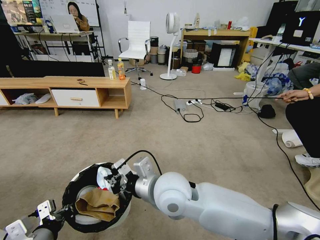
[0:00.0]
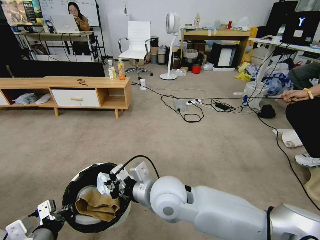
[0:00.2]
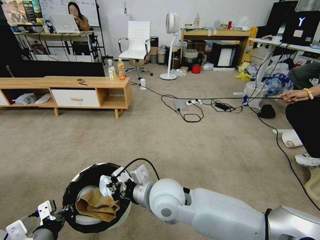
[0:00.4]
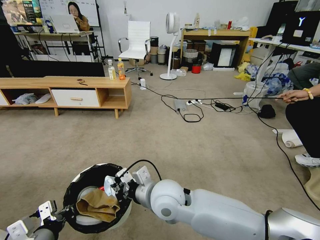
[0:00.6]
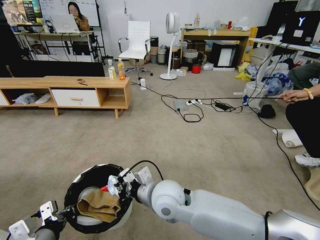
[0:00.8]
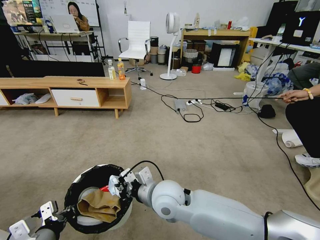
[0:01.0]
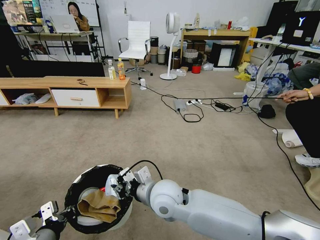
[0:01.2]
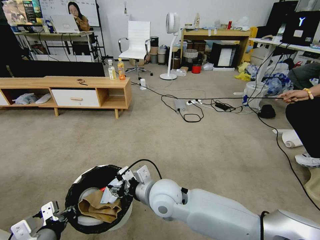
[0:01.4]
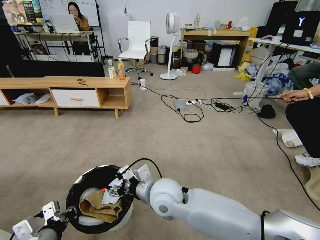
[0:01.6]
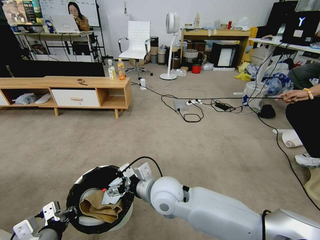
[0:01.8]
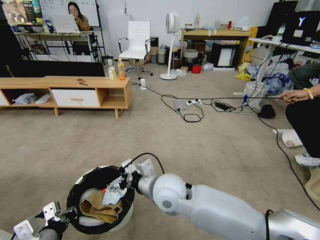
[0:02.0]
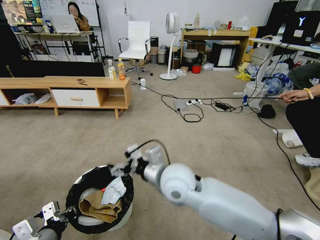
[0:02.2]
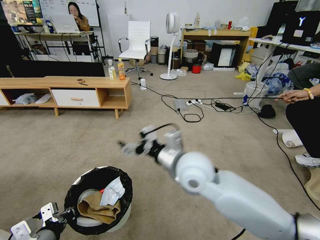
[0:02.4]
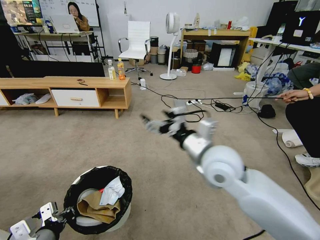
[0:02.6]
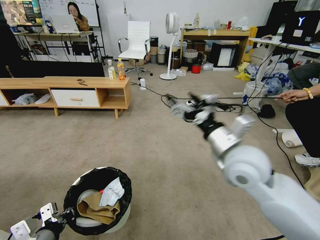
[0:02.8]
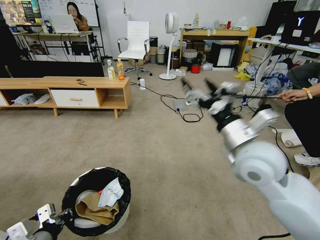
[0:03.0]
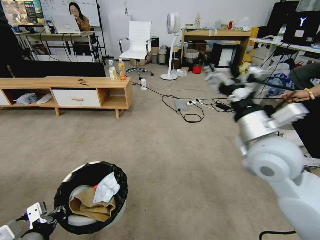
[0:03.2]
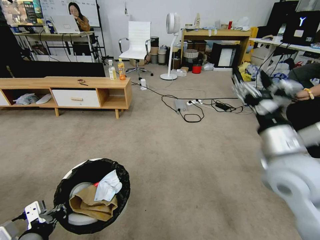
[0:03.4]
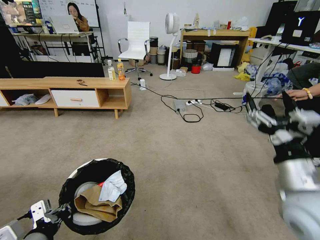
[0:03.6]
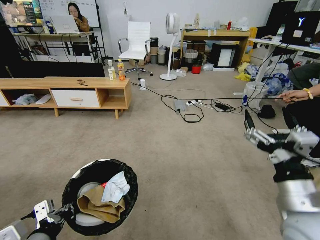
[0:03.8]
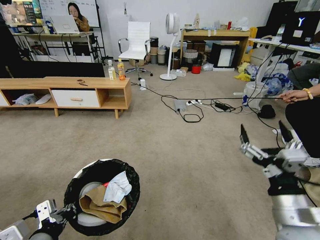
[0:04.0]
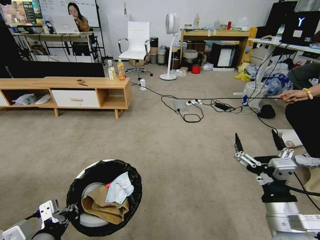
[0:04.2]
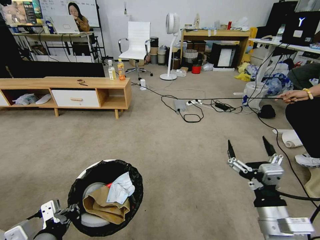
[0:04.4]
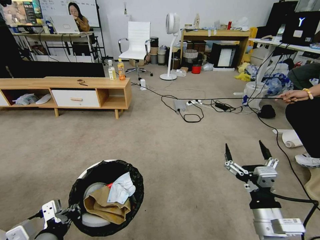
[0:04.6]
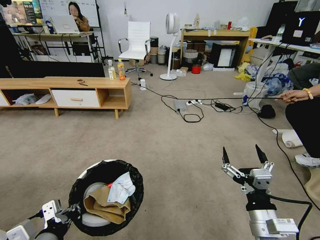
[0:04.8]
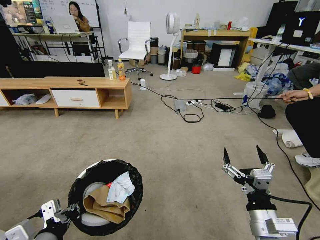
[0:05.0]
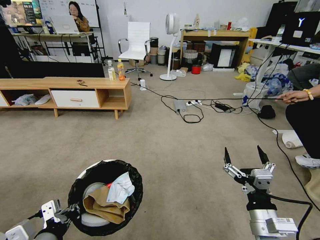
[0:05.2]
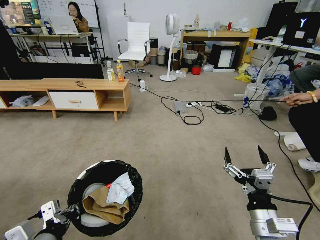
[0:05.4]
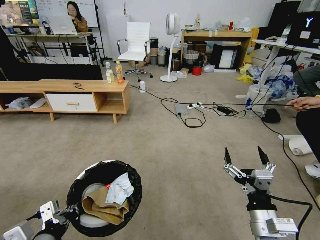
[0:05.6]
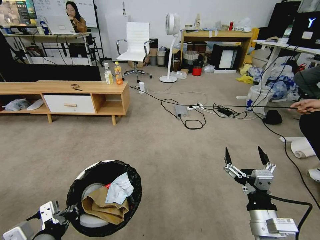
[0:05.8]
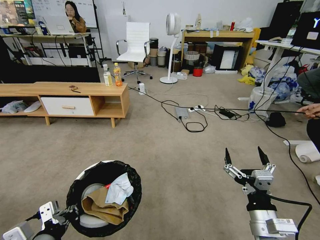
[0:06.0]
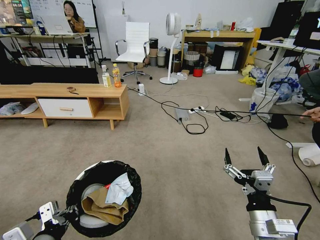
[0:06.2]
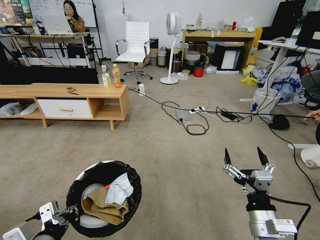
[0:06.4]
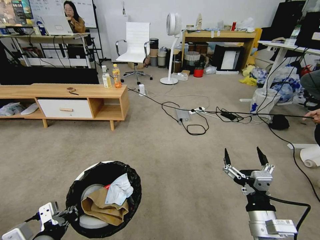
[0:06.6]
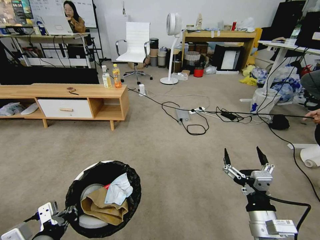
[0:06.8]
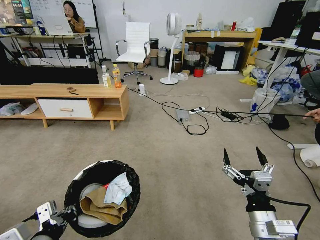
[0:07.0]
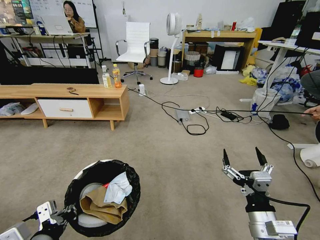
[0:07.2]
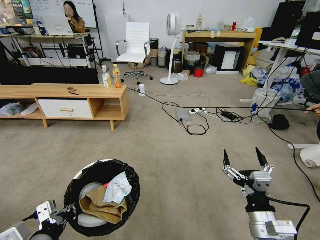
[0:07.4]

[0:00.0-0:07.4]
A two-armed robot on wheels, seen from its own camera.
Task of the whole recording: Pick up the trash bin and place the garbage on the floor into it.
0:00.0 to 0:01.4: The right gripper goes about 5 cm downward, and opens up.
0:01.4 to 0:03.0: The right gripper is displaced to the right and upward by approximately 25 cm, and opens up.
0:03.0 to 0:04.4: The right gripper travels downward and backward by about 20 cm, while the left gripper shifts by some 5 cm.
0:06.0 to 0:07.4: Neither gripper changes place.

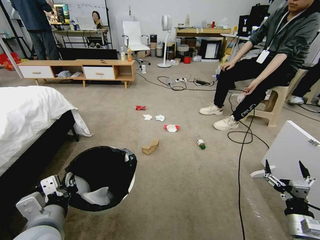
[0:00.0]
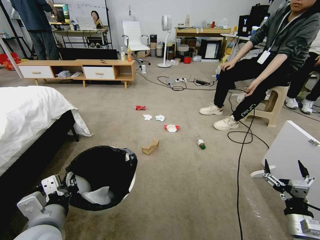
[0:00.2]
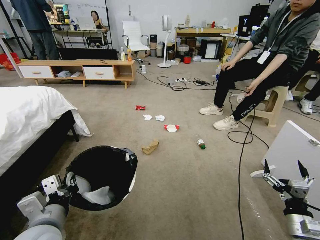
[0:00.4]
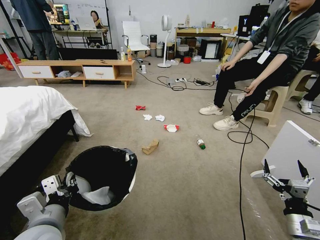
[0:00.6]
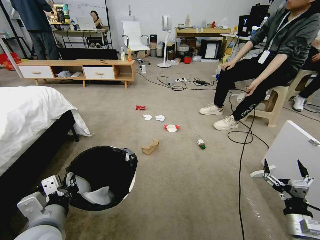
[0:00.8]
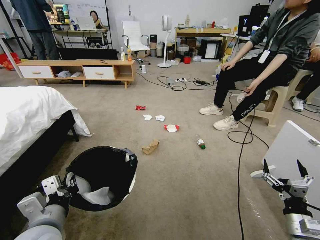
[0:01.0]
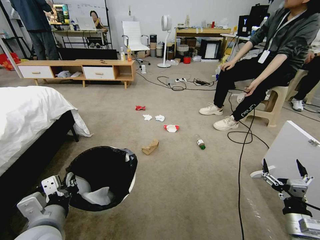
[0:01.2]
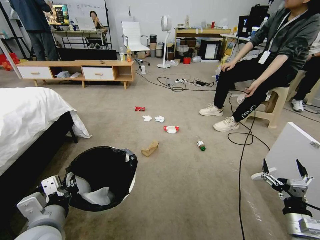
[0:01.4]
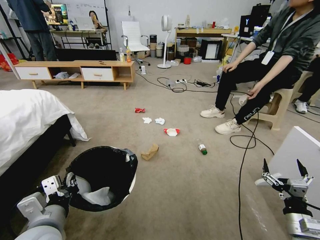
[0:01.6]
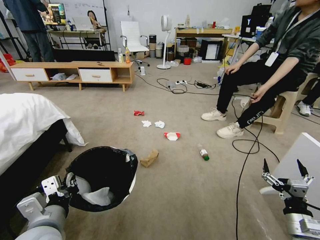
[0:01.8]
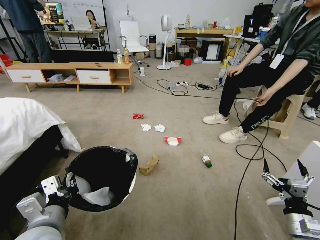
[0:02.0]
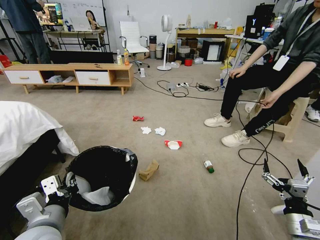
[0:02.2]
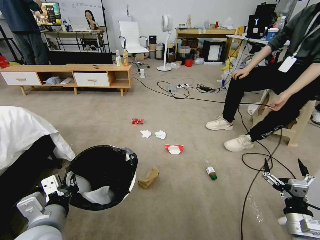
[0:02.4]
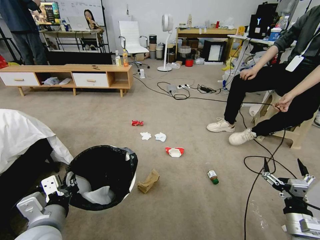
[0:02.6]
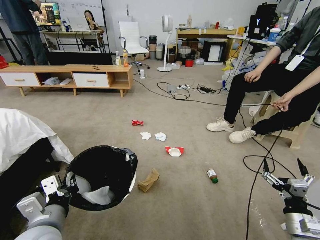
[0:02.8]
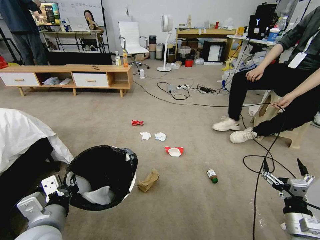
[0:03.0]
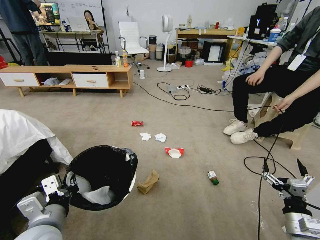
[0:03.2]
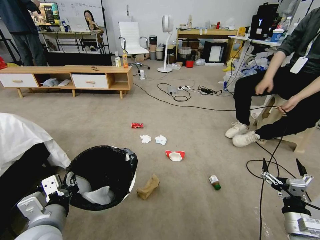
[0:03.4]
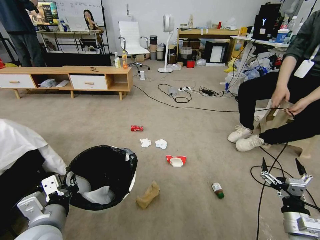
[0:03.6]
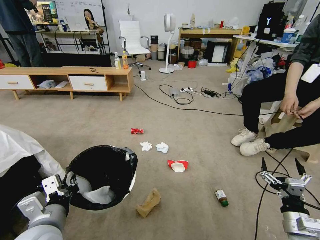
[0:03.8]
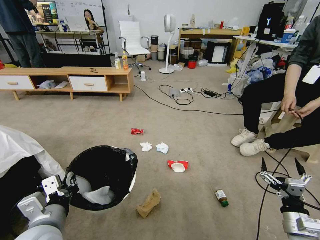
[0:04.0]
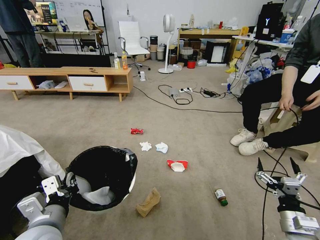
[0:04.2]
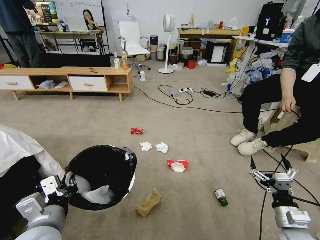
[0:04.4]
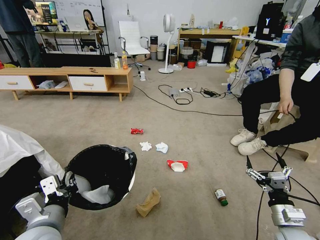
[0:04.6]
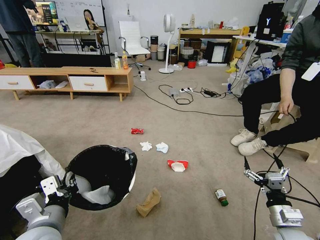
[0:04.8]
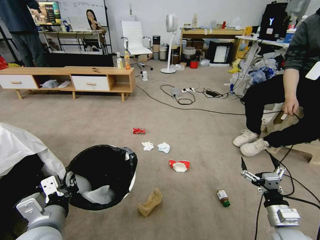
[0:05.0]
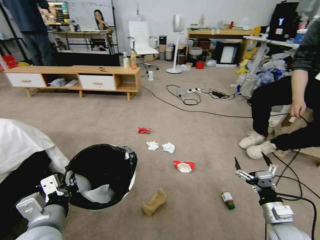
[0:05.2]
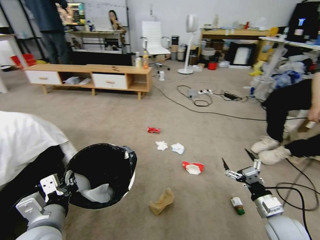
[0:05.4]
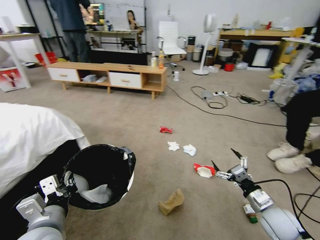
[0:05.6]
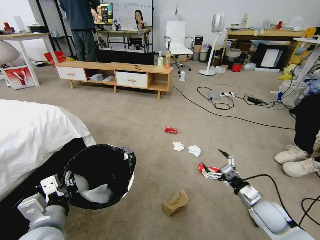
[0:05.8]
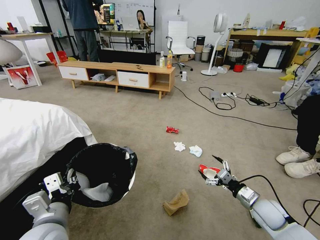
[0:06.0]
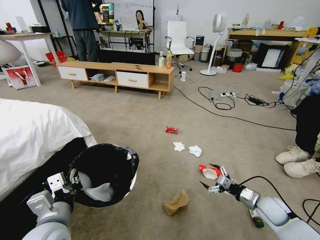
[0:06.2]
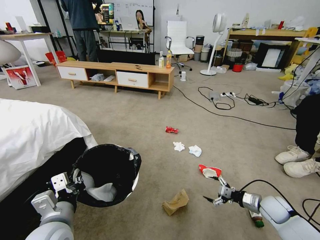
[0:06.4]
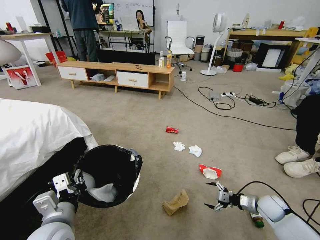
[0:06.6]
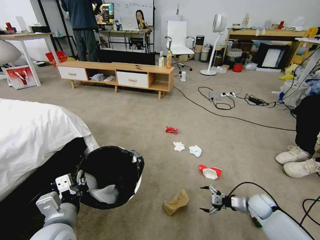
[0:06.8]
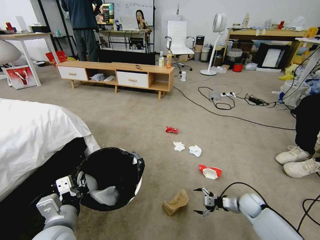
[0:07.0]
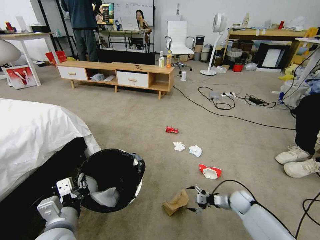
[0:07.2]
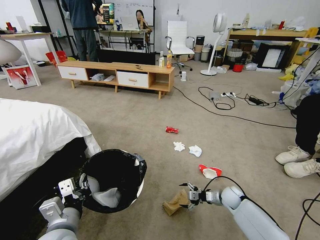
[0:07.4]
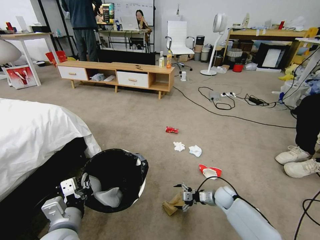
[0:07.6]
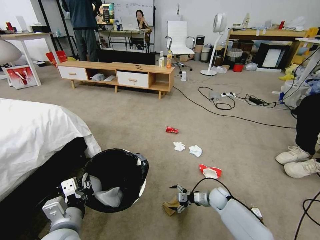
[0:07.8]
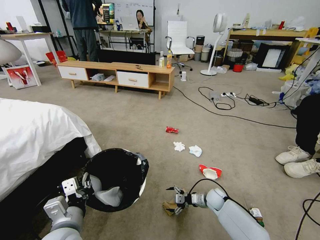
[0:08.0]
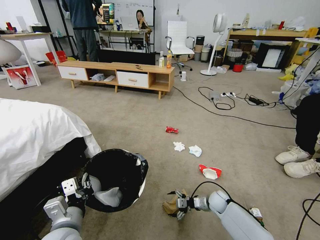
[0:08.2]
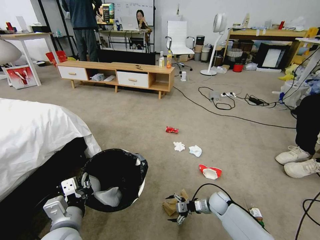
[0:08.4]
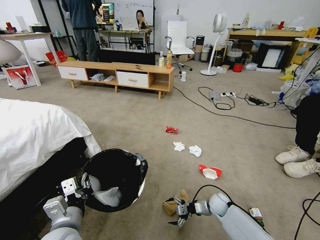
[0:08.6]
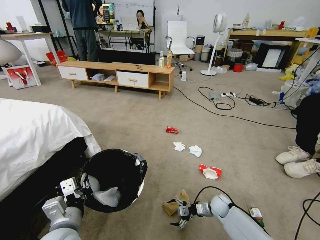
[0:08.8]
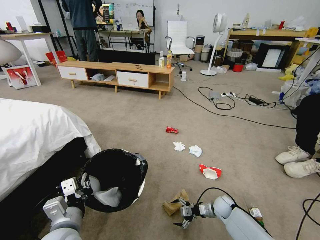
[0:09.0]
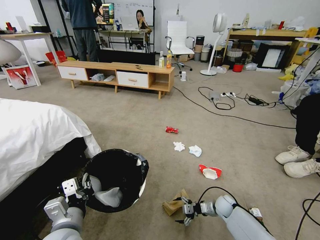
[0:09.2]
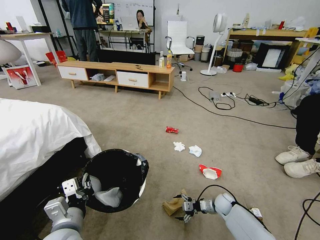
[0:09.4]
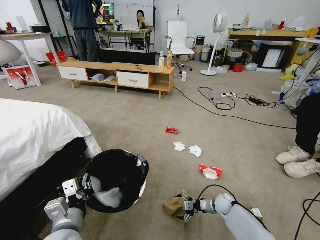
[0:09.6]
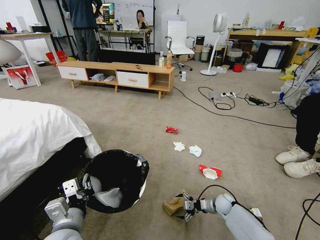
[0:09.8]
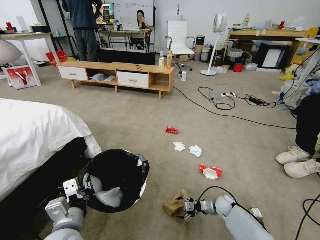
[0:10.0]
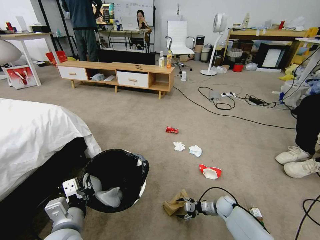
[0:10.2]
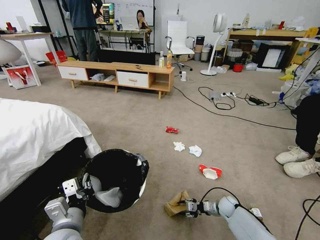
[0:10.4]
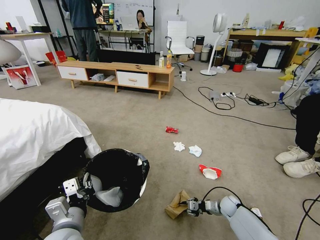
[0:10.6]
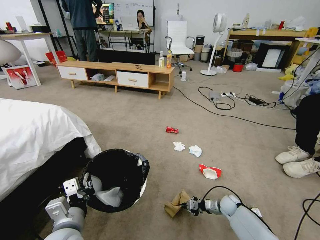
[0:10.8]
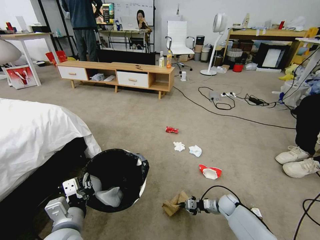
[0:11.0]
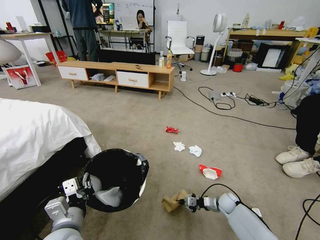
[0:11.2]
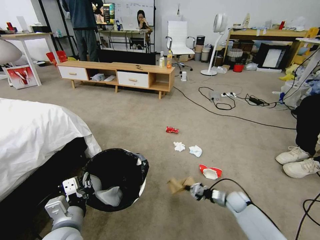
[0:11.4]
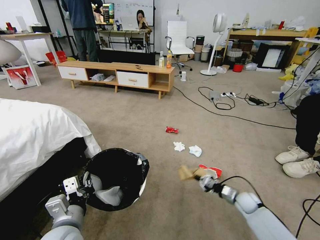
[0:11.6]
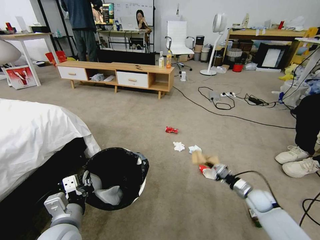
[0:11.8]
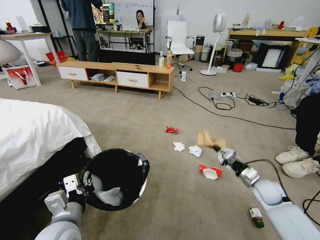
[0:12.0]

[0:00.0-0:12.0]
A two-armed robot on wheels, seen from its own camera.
Task of the whole recording: Pick up the trash bin and place the garbage on the floor into it.
0:04.4 to 0:06.0: The right gripper is displaced forward by approximately 10 cm.
0:06.0 to 0:07.6: The right gripper is displaced forward, downward and to the left by approximately 15 cm.
0:07.6 to 0:09.0: The grippers move only a little.
0:09.0 to 0:10.4: The right gripper closes its fingers.
0:10.4 to 0:12.0: The right gripper shifts about 20 cm upward and to the right, and closes up.

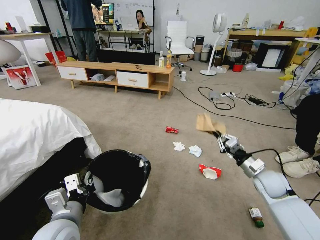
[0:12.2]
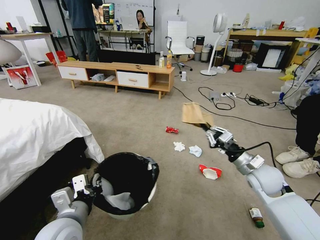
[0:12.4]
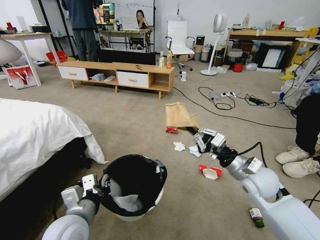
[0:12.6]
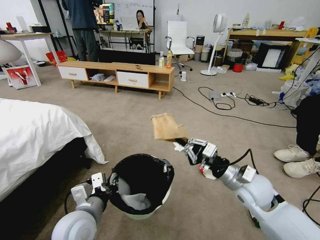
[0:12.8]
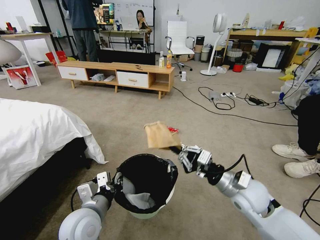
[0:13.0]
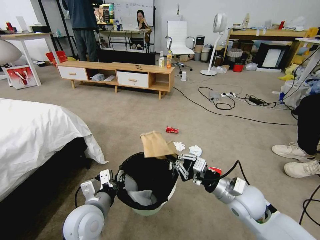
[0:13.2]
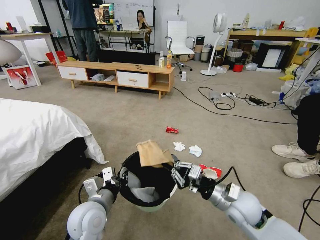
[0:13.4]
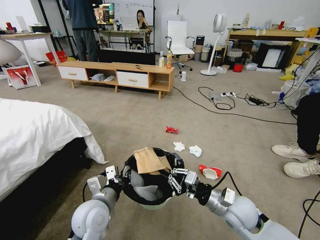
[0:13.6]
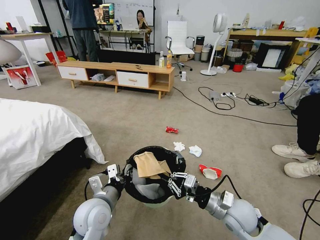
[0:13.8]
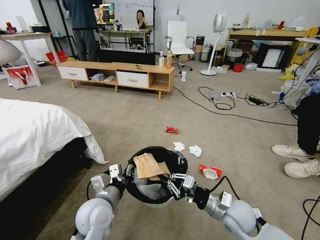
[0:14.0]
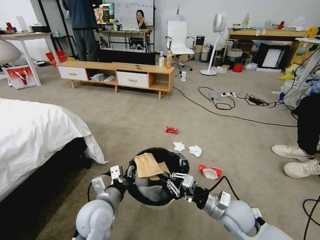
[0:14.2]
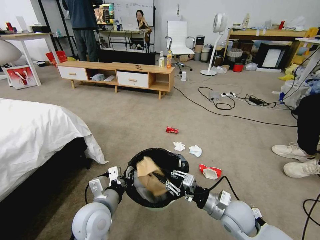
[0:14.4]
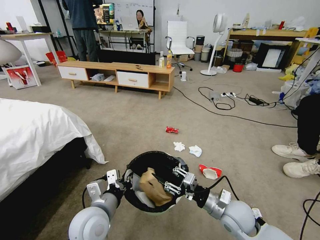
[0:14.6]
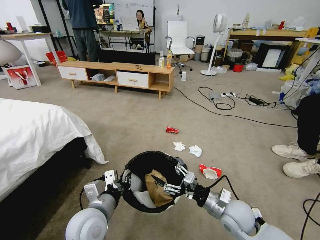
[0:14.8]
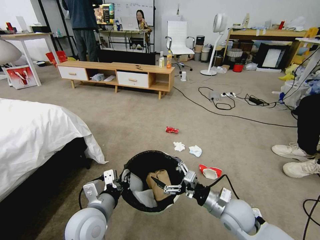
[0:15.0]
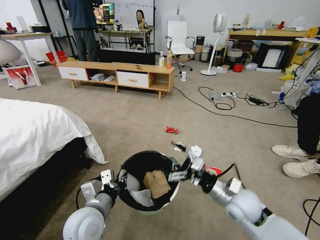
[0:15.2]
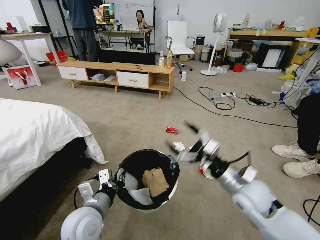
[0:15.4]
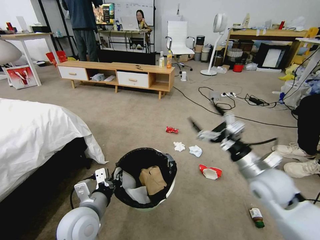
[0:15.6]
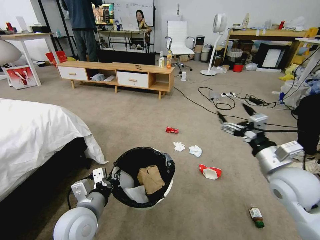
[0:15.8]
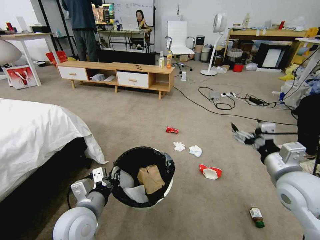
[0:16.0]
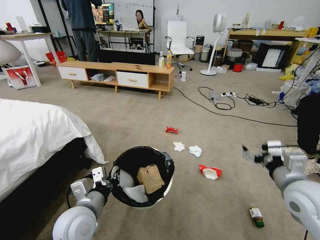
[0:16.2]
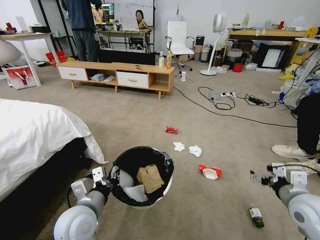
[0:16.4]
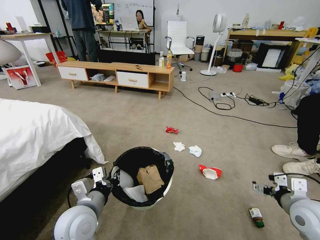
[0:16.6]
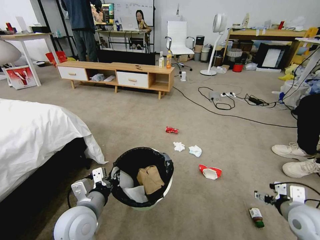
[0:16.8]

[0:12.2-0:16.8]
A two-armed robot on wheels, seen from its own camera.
Task of the whole recording: Pick up the trash bin and place the garbage on the floor into it.
0:12.2 to 0:13.8: The left gripper shifts some 10 cm forward and to the right. The right gripper travels to the left and backward by some 20 cm.
0:13.8 to 0:15.2: The right gripper opens.
0:15.2 to 0:16.8: The right gripper heads to the right, covering roughly 20 cm.
